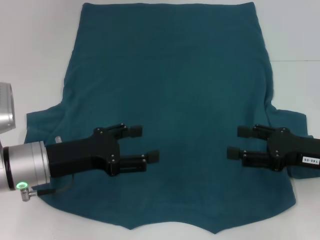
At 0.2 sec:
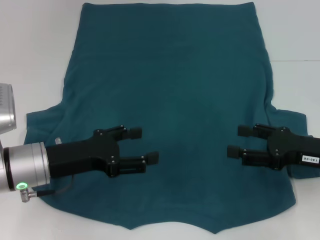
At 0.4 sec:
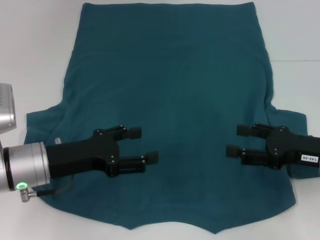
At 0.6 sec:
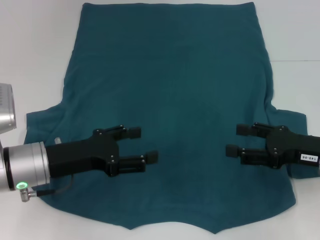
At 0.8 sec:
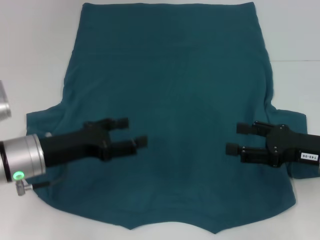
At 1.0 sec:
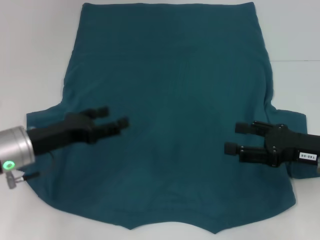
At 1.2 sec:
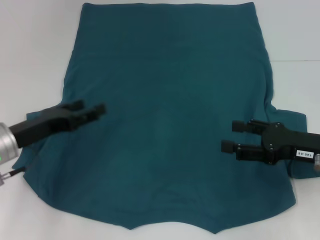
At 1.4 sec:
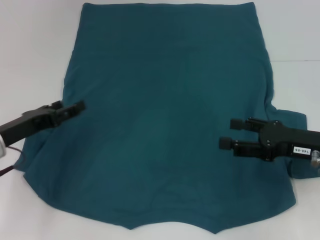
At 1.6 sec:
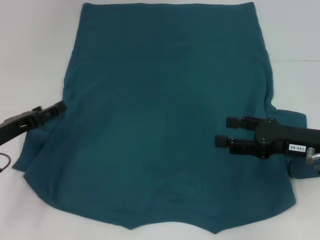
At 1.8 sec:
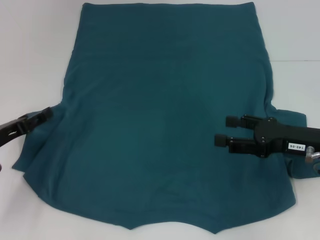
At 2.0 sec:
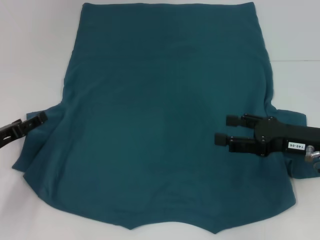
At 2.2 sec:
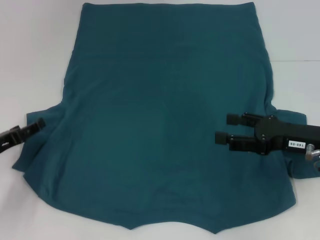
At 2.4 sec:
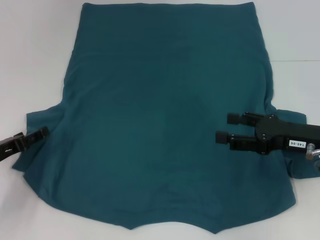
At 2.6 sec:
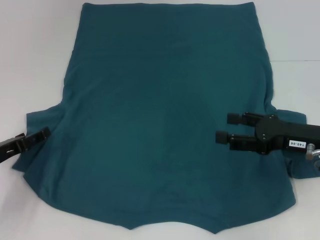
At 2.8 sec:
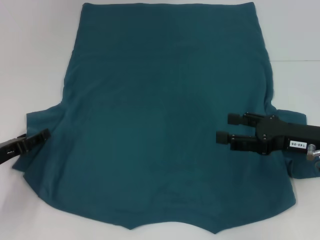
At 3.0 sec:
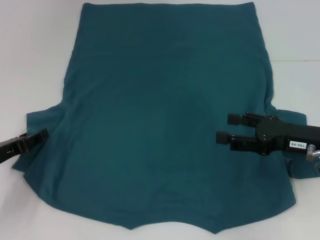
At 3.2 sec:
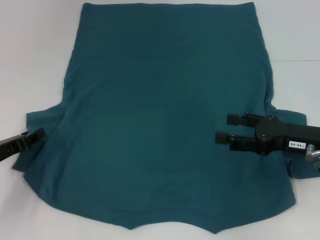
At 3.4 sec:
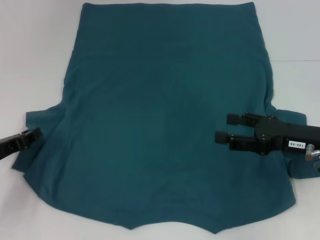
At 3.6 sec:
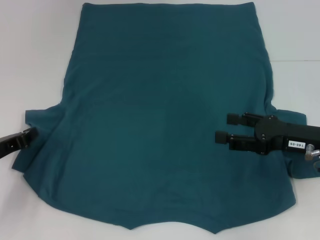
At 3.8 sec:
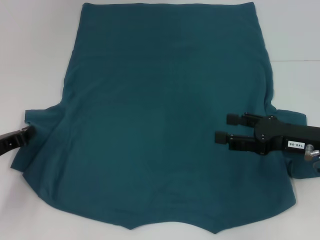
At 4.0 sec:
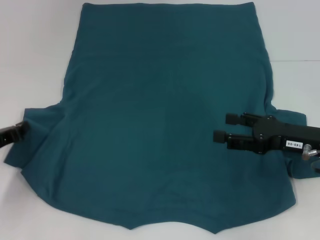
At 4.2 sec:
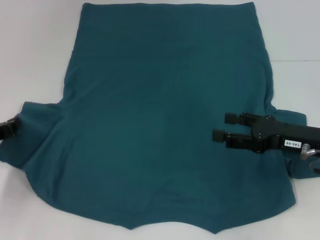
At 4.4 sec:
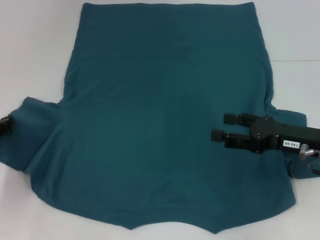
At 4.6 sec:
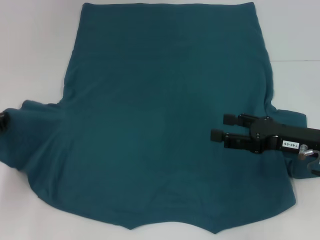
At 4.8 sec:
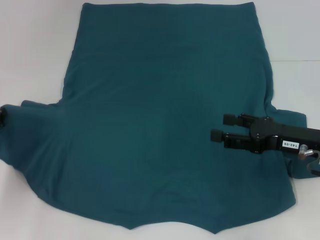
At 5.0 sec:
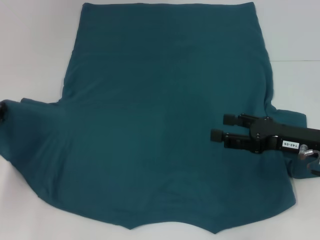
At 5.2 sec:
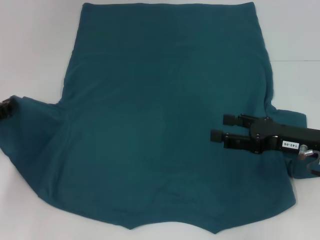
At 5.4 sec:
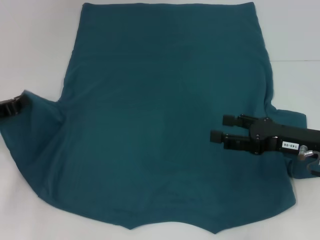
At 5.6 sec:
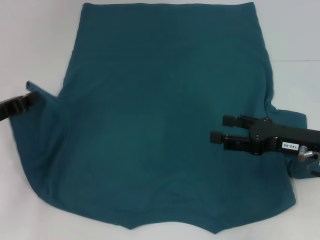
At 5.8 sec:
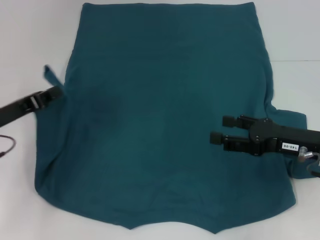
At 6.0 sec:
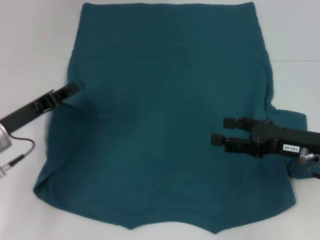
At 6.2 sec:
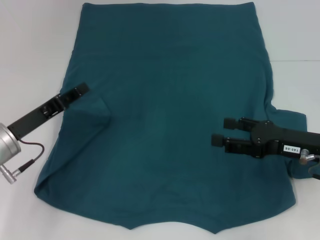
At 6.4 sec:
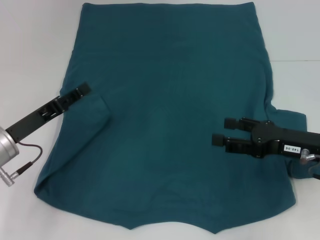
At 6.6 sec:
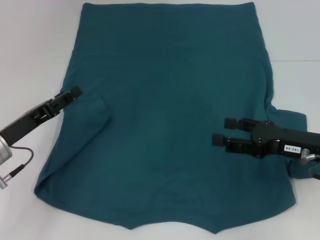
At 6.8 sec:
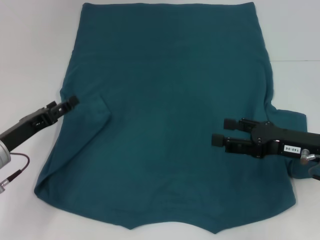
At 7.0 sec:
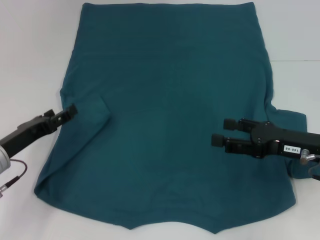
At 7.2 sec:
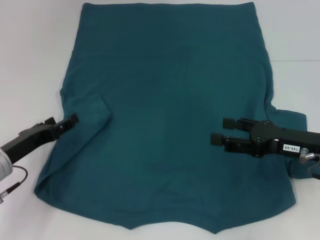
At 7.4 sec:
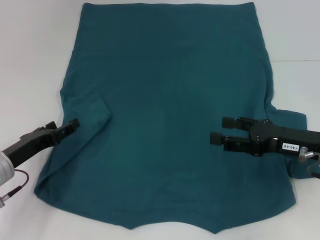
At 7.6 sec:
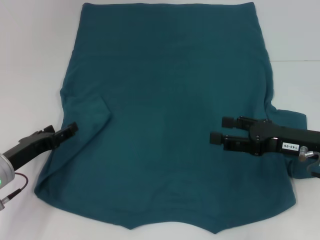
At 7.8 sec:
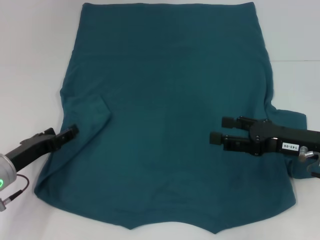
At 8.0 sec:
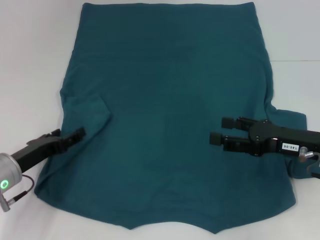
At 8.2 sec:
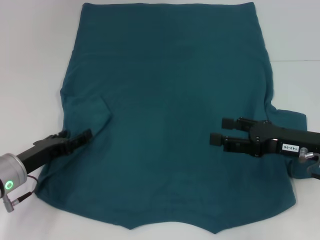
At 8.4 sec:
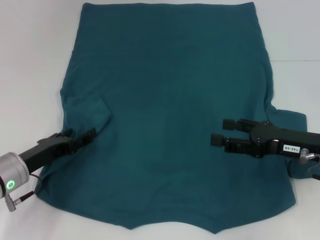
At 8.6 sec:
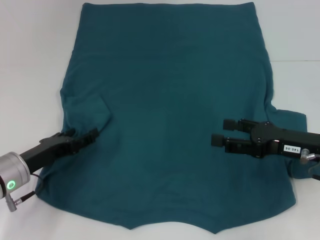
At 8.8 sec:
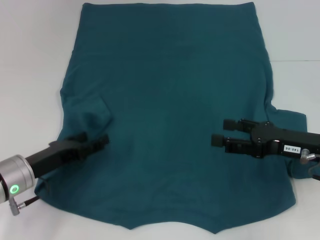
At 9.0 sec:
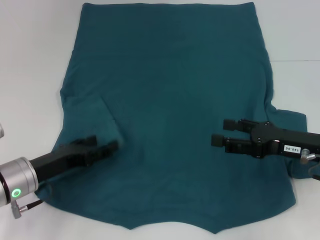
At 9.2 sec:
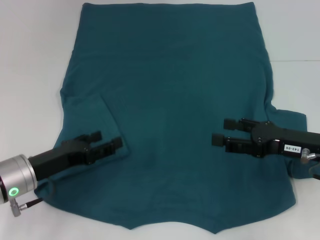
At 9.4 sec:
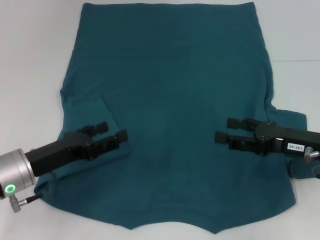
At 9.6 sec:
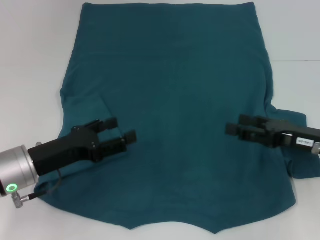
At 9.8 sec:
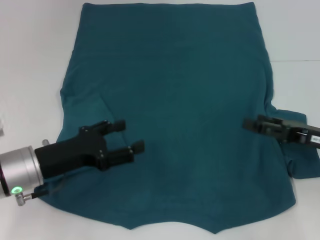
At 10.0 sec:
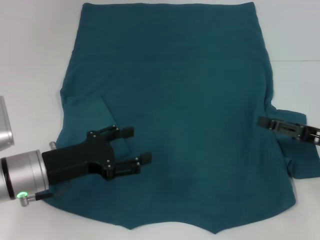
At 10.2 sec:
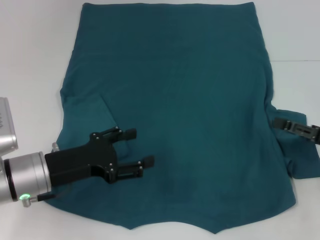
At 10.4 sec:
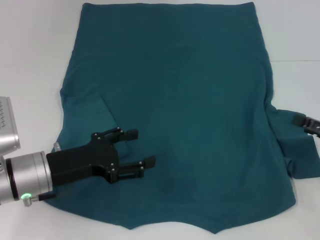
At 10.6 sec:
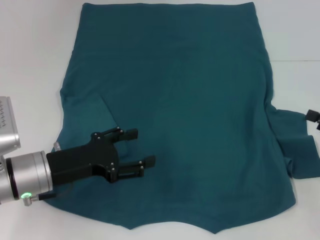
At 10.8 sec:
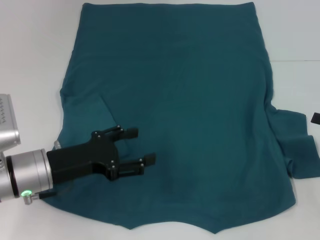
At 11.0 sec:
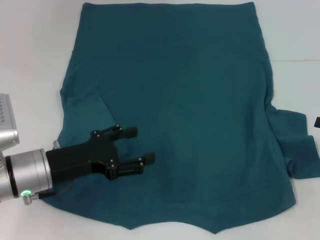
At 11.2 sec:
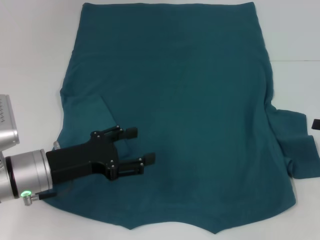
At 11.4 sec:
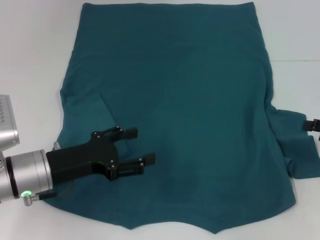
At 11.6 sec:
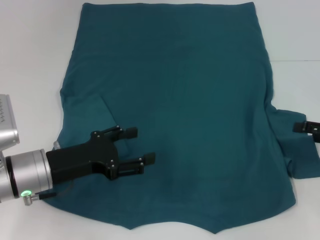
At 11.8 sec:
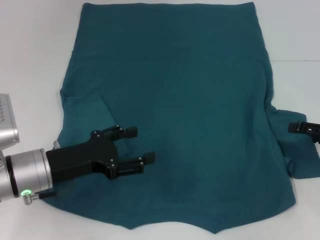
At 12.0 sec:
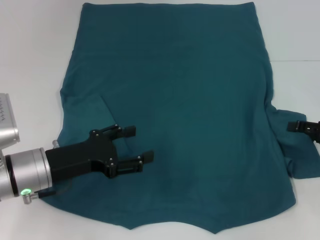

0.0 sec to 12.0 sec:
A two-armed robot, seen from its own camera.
Step, 0.0 sec to 9.4 sec: Fold the bottom left sleeve with your left hand.
0.0 sec to 1.6 sec: The left gripper moves to the left, some 10 cm.
1.6 sec to 3.0 sec: There are only small adjustments of the grippers.
3.0 sec to 4.4 sec: The left gripper closes its fingers.
4.4 sec to 6.0 sec: The left gripper heads to the right, covering some 5 cm.
6.0 sec to 7.6 sec: The left gripper is displaced downward by approximately 5 cm, and opens.
7.6 sec to 9.0 sec: There are only small adjustments of the grippers.
9.0 sec to 10.4 sec: The right gripper moves to the right, approximately 10 cm.
10.4 sec to 12.0 sec: The grippers make only small movements.

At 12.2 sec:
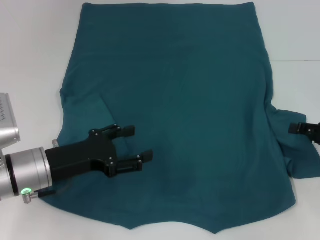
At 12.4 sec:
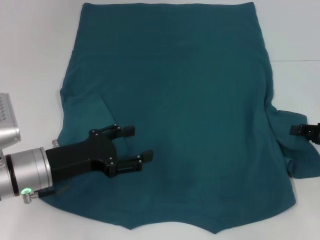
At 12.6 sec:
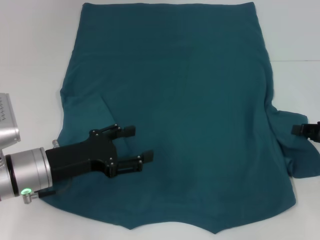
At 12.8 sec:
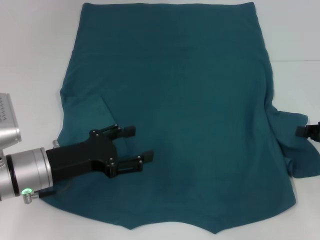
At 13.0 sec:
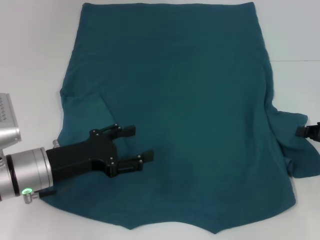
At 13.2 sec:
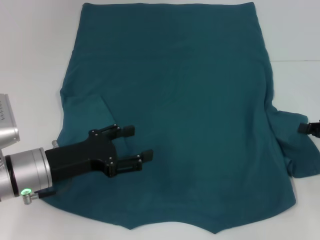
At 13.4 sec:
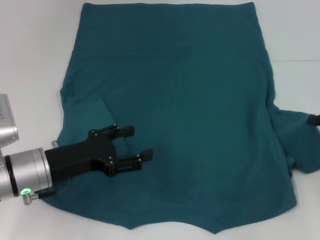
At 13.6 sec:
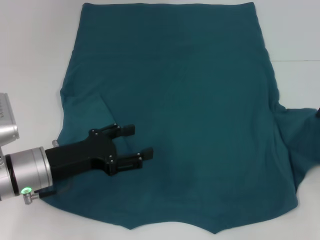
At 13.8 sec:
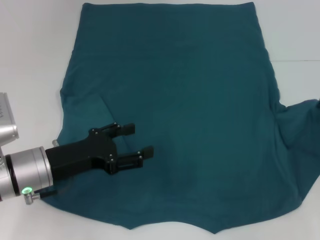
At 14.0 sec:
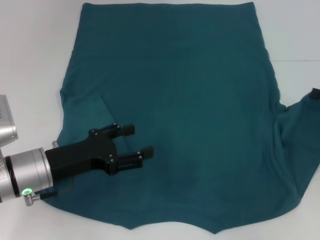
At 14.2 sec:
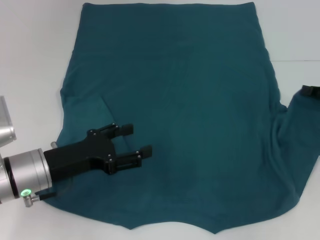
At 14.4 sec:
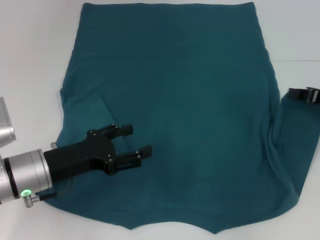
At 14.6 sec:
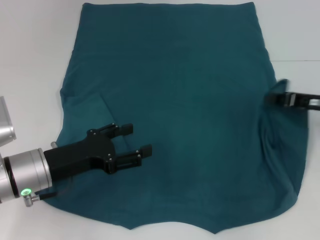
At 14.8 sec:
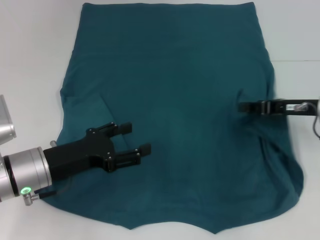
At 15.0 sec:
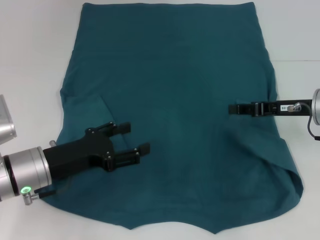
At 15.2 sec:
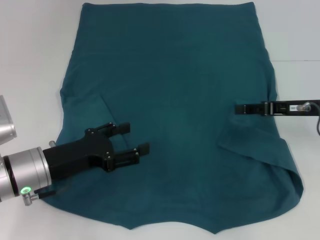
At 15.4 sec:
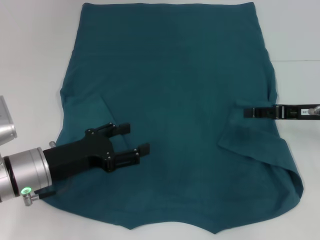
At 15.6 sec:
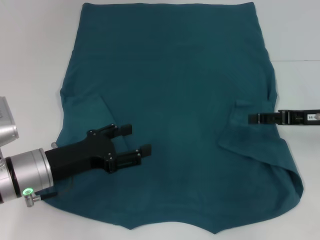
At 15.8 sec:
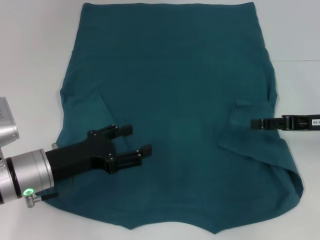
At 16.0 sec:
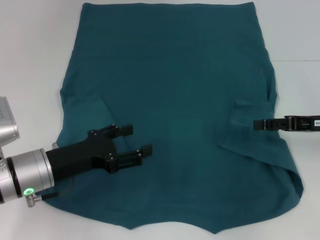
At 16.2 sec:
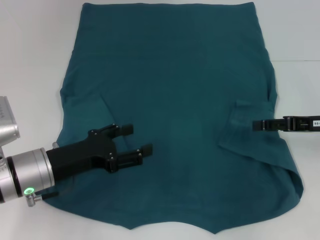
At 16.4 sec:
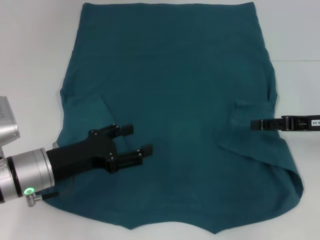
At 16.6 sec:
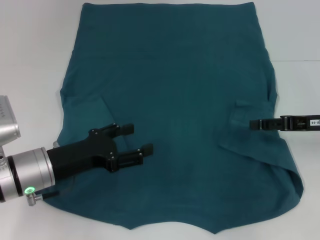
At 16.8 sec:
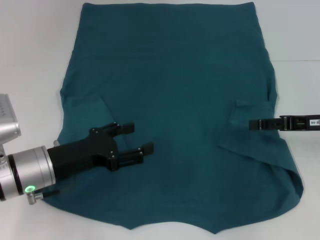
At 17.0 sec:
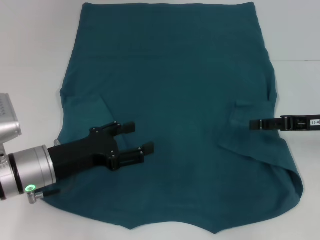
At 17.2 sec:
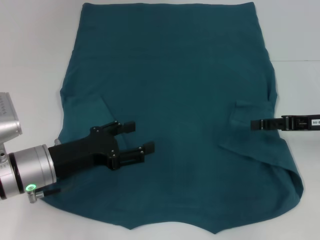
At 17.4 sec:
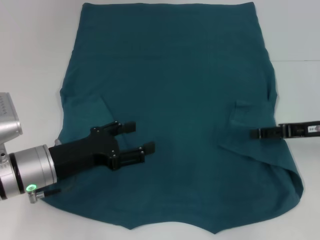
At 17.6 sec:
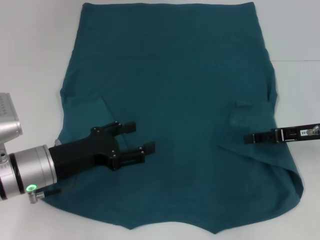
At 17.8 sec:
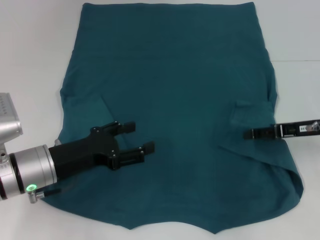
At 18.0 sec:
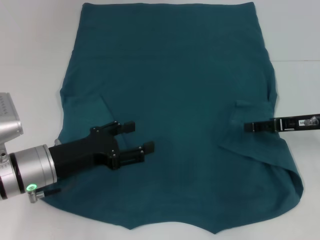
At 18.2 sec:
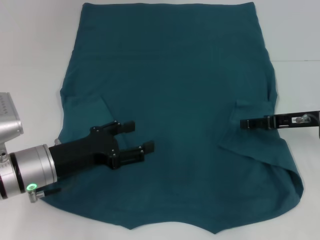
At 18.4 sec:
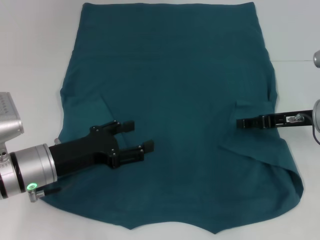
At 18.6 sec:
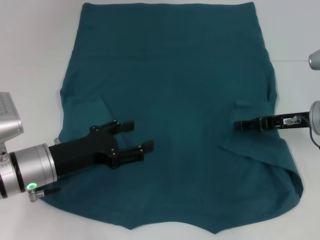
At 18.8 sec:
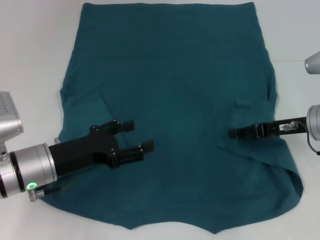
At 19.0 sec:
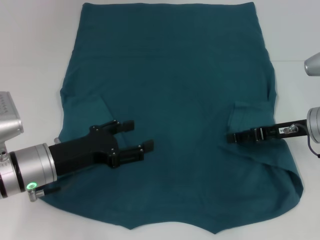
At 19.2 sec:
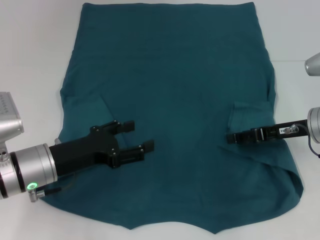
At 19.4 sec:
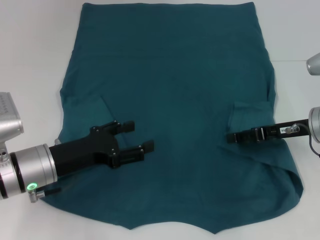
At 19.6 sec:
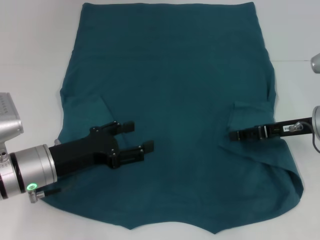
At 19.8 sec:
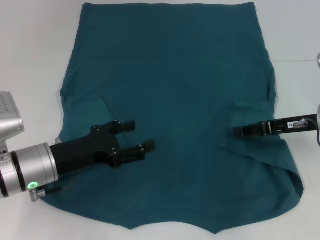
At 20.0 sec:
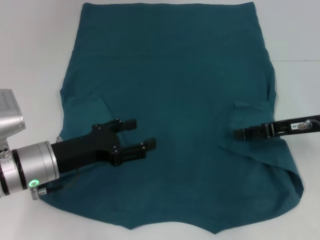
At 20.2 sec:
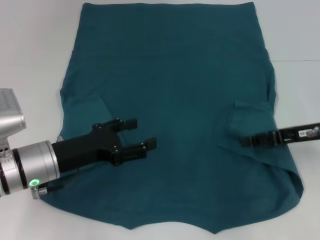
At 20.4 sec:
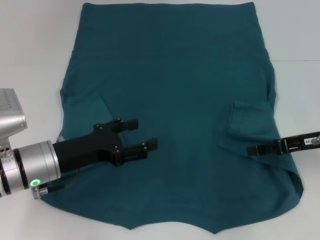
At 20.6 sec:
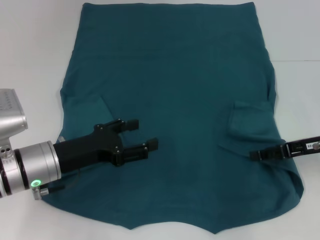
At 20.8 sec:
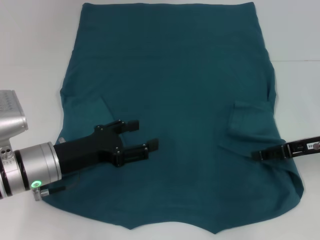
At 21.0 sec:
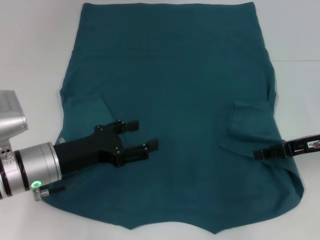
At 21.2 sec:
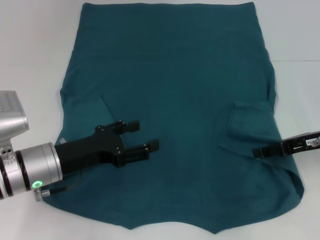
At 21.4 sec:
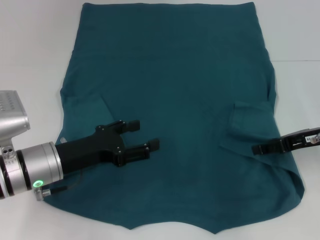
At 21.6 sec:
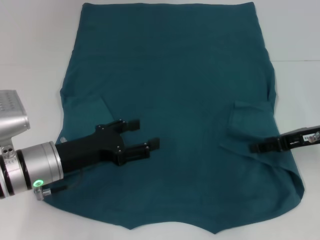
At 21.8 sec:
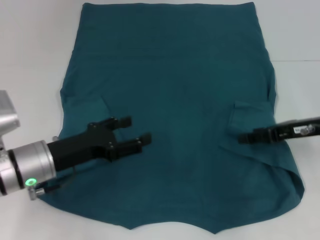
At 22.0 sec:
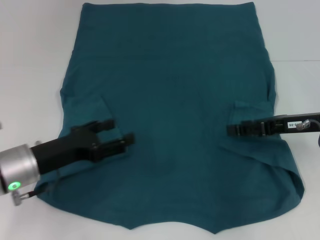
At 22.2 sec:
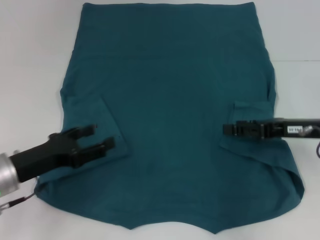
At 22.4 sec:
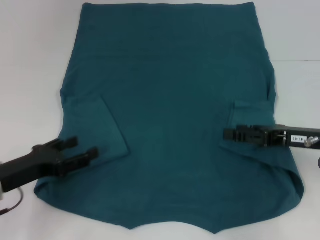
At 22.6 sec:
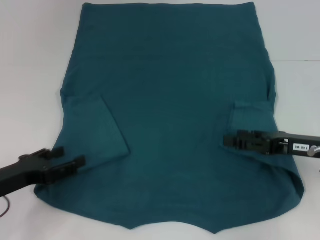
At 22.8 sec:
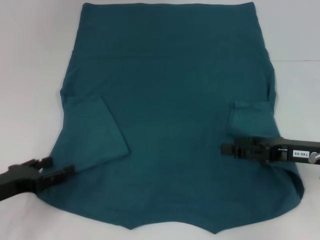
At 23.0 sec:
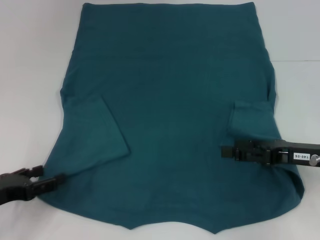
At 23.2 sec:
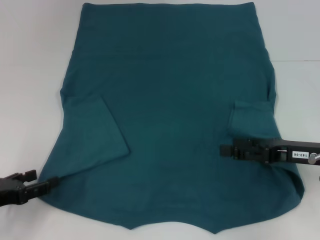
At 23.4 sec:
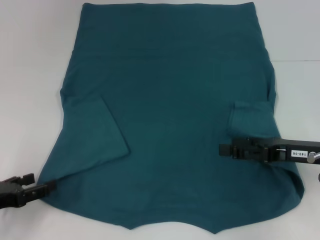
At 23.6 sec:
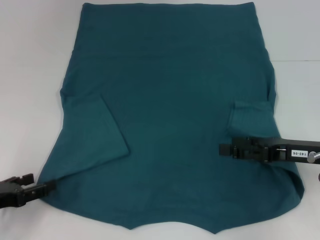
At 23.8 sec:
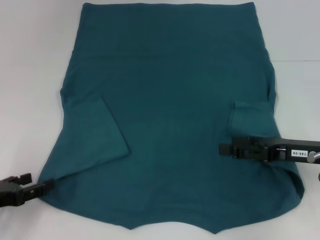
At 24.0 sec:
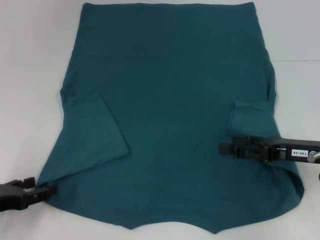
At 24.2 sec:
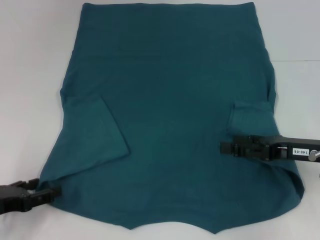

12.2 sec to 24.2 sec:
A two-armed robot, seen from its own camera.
Step, 12.2 sec to 20.2 sec: Fold the bottom right sleeve to the right.
12.2 sec to 13.8 sec: The right gripper closes.
13.8 sec to 15.2 sec: The right gripper moves to the left, approximately 10 cm.
15.2 sec to 16.6 sec: The right gripper opens.
16.6 sec to 21.2 sec: The grippers stay close to where they were, moving slightly.
21.2 sec to 22.6 sec: The left gripper heads to the left, covering about 10 cm.
22.6 sec to 24.2 sec: There are only small adjustments of the grippers.
